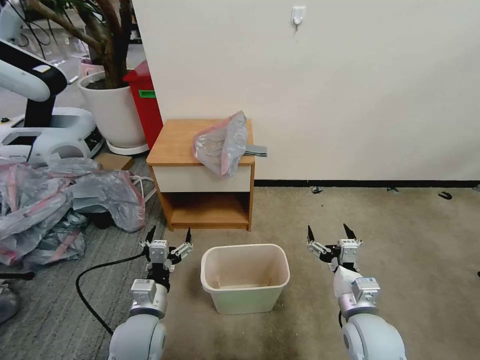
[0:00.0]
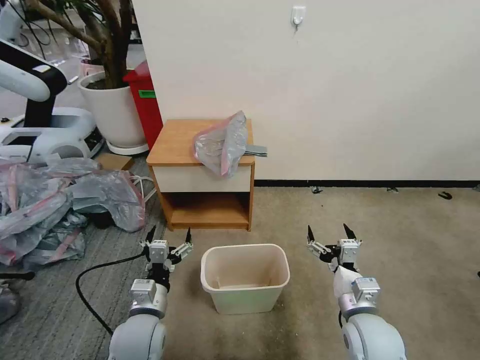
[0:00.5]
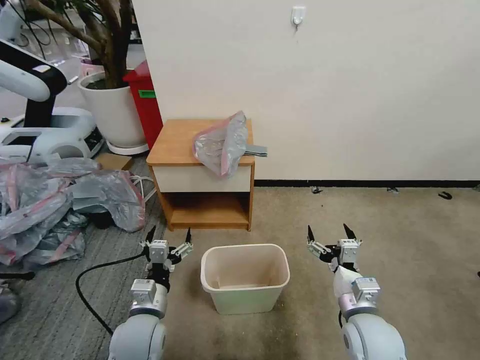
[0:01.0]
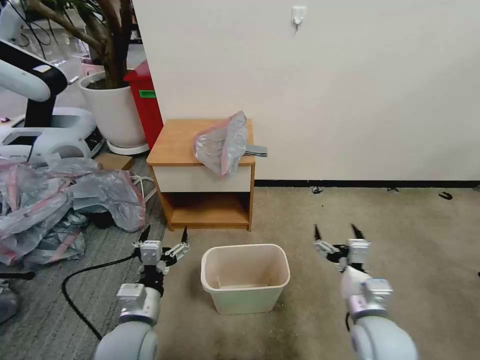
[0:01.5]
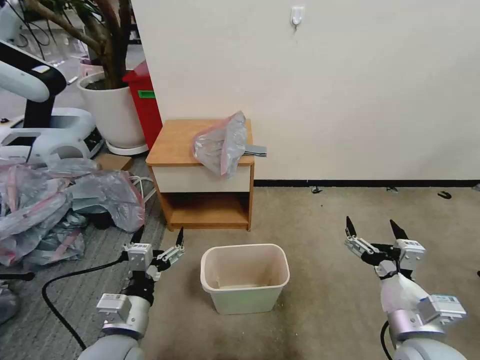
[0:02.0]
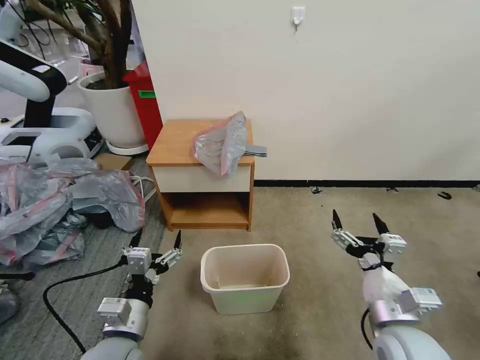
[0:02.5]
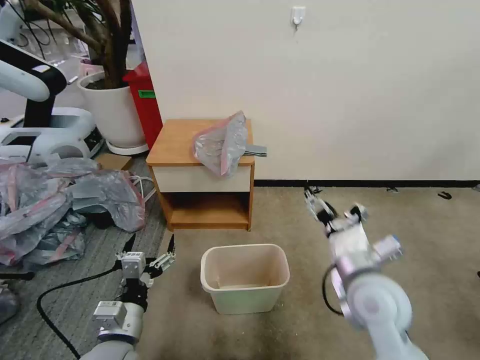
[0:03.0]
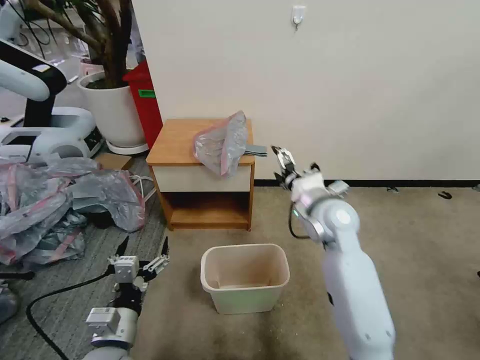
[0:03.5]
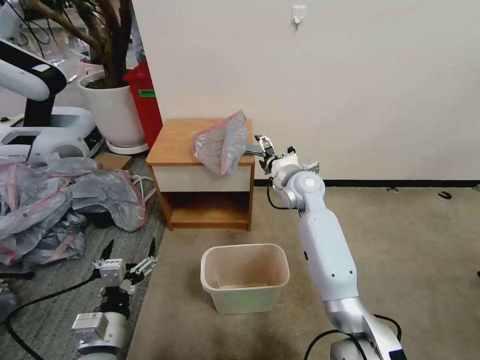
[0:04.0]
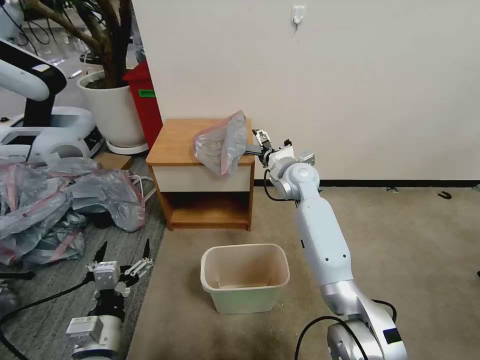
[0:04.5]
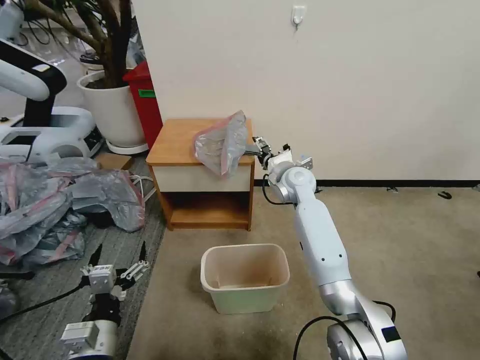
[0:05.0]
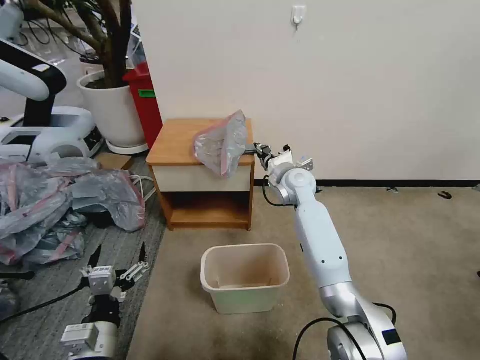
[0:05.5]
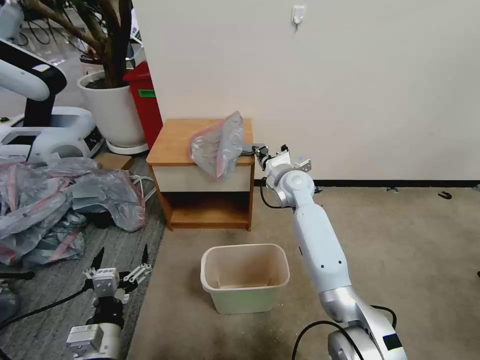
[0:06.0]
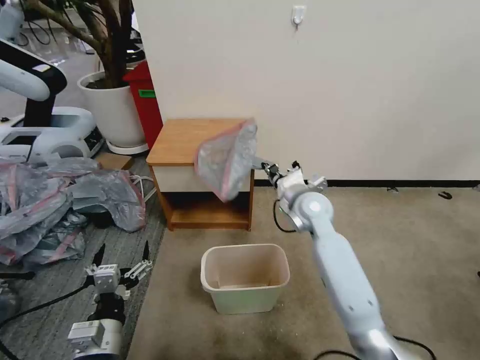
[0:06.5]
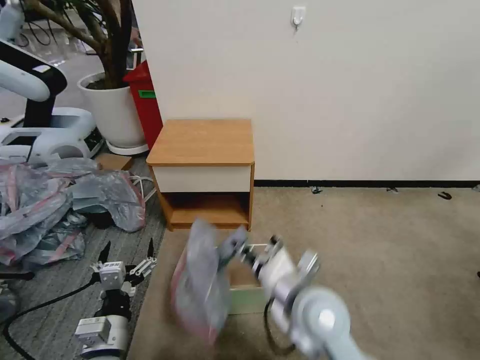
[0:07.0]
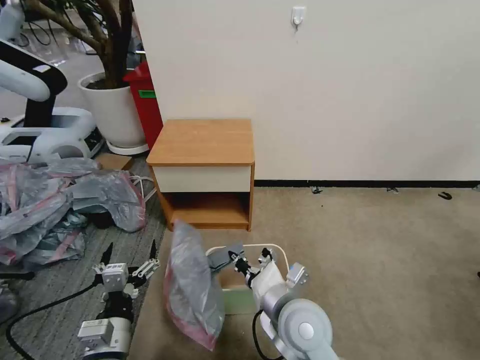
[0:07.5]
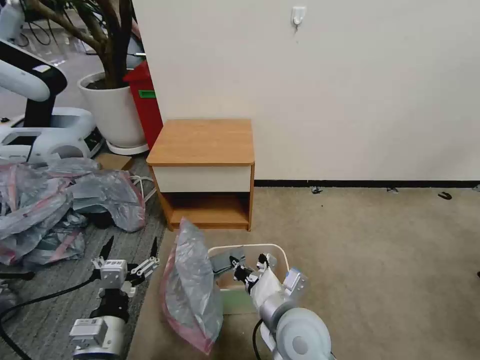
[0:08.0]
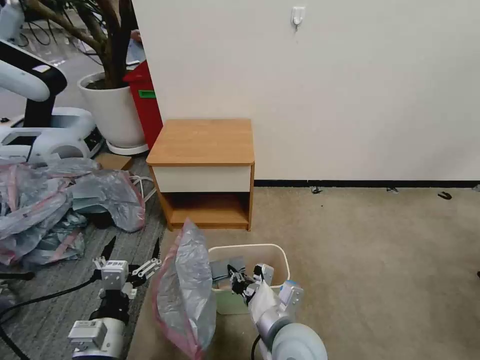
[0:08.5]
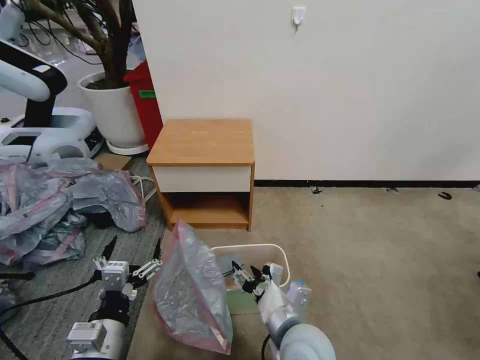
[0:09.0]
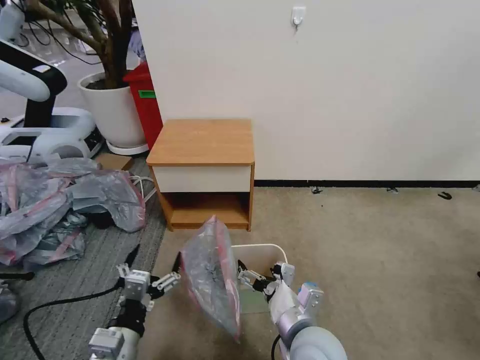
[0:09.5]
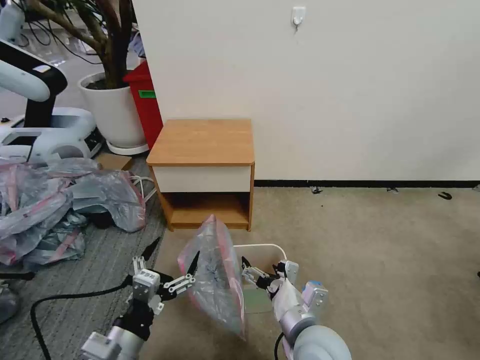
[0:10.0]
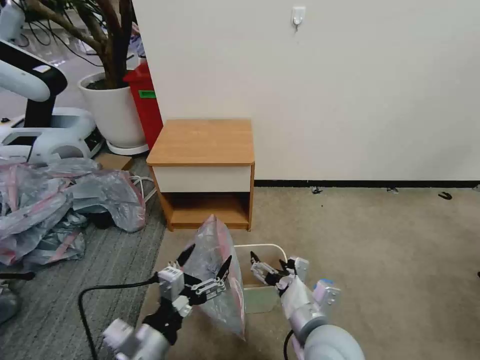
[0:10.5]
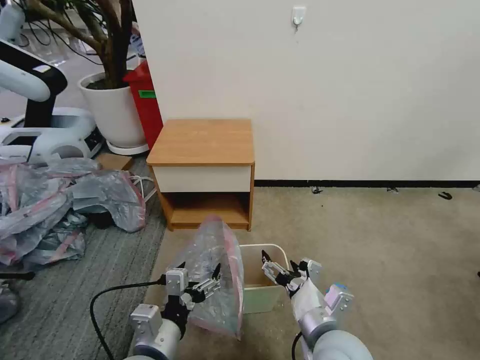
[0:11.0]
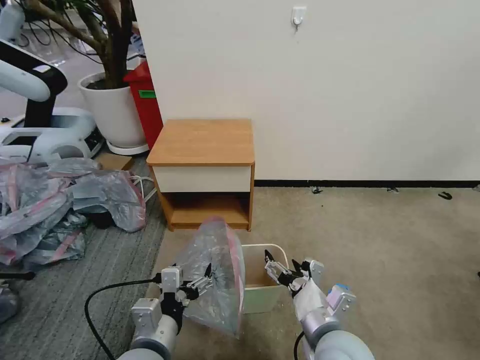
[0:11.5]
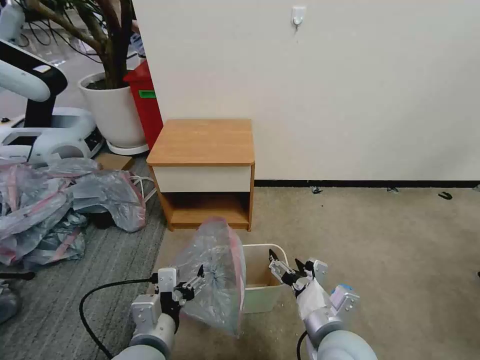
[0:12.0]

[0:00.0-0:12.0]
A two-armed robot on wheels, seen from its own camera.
Task of the whole recording: Pick up the garbage bag from the table and place it over the trash can.
0:02.0 to 0:04.0: The right gripper travels forward by about 35 cm.
0:04.0 to 0:06.0: The right gripper closes its fingers.
0:06.0 to 0:08.0: The right gripper travels backward by some 30 cm.
0:08.0 to 0:10.0: The right gripper opens.
0:10.0 to 0:12.0: The left gripper goes about 5 cm to the right.

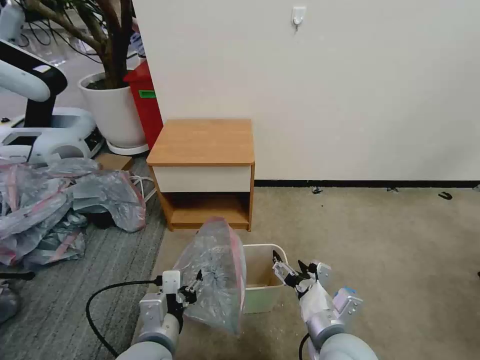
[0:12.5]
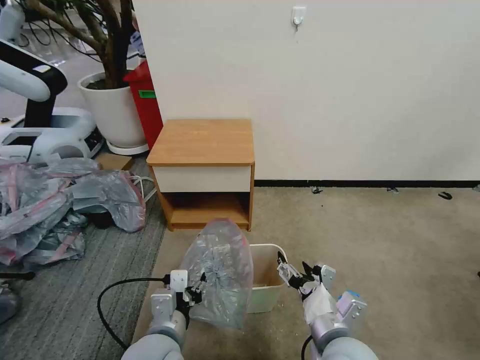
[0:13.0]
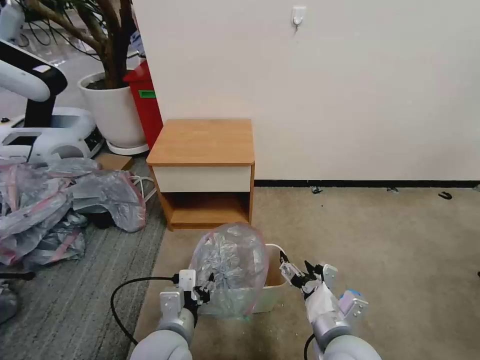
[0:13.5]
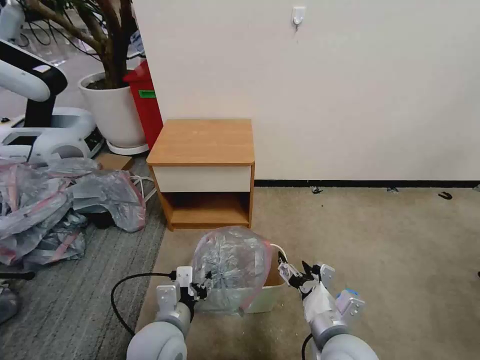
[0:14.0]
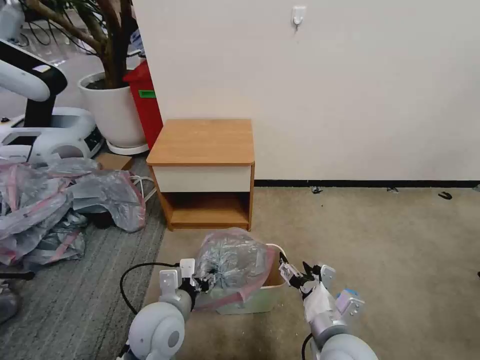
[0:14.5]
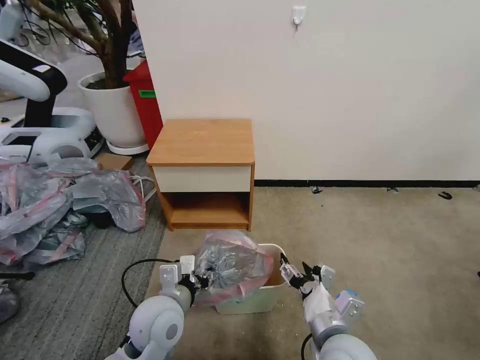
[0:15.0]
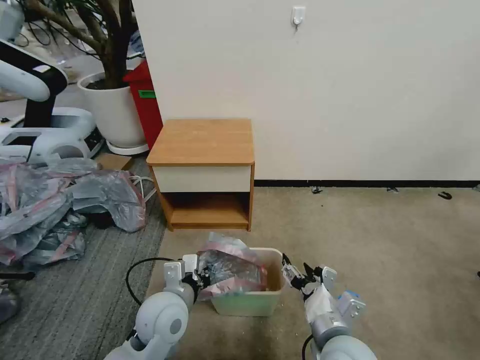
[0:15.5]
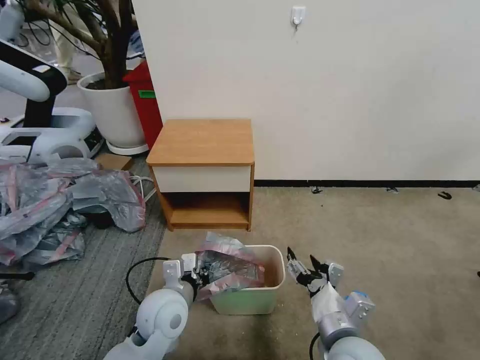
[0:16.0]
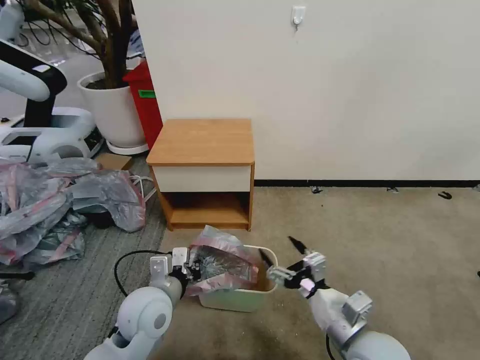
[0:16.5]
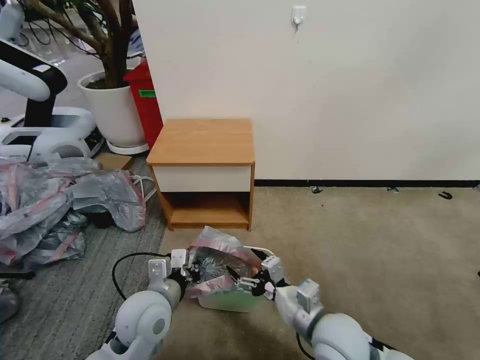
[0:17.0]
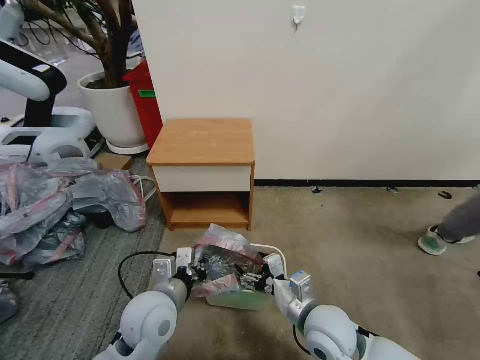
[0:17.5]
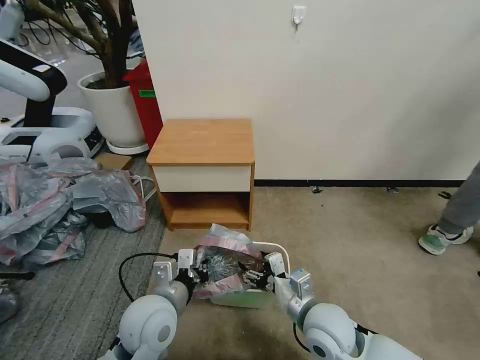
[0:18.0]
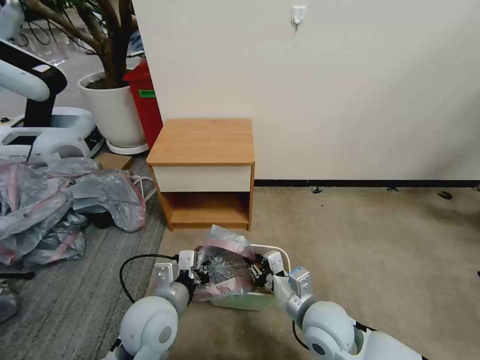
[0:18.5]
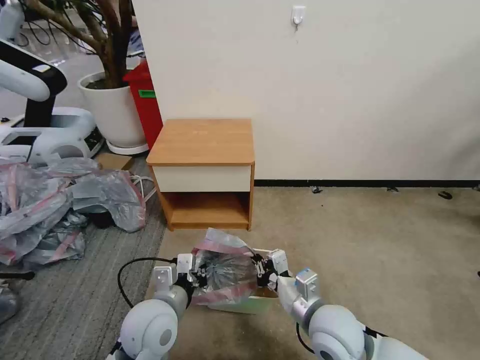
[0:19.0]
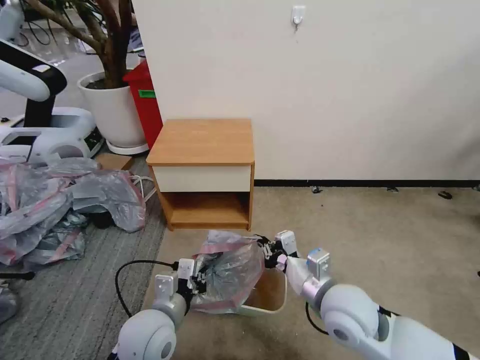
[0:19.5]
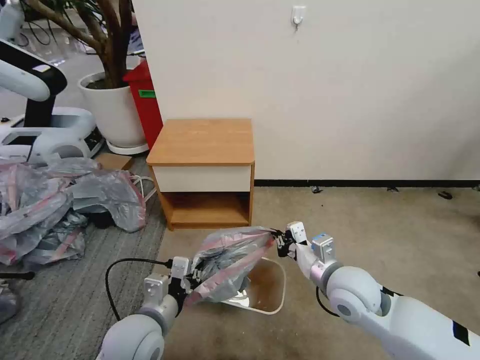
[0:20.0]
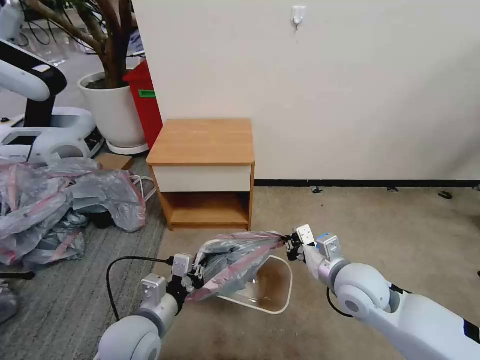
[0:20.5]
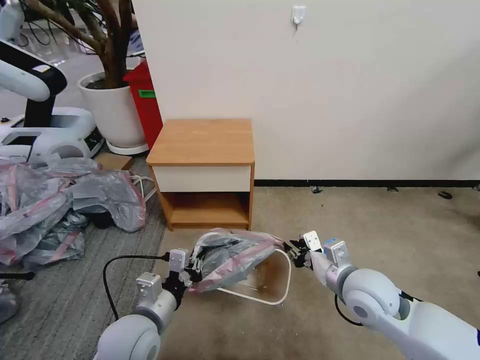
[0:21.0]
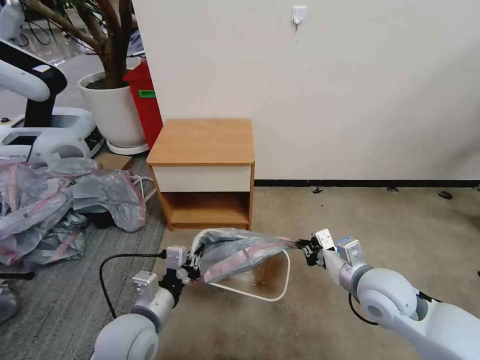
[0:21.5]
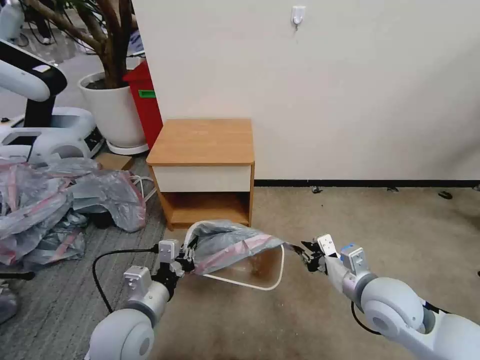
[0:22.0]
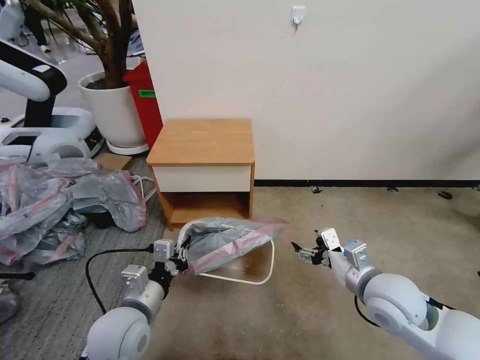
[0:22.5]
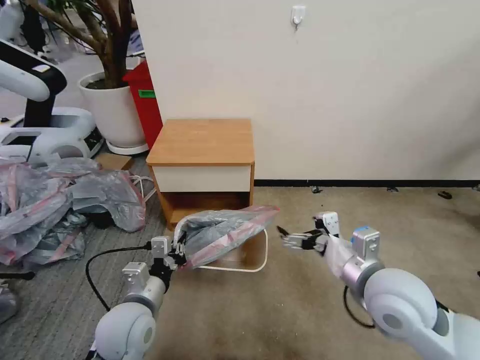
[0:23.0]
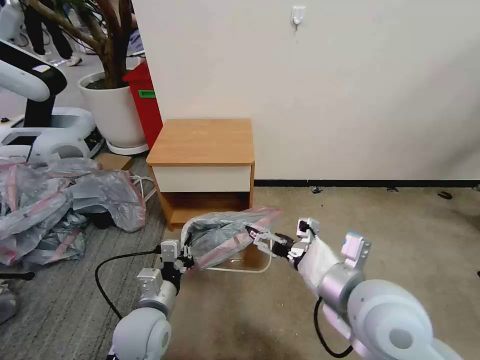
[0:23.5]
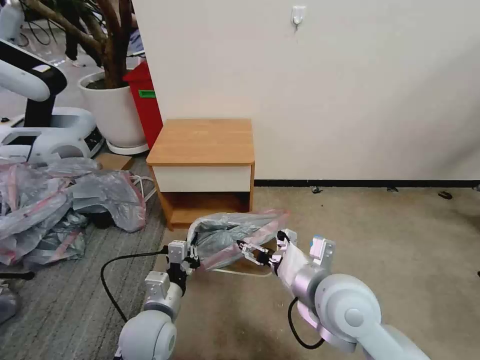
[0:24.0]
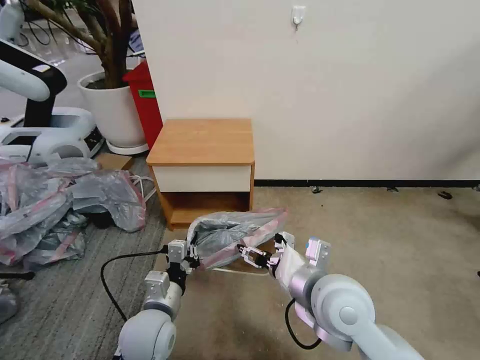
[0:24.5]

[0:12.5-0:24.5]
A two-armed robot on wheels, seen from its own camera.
Task of the whole recording: Pick up the garbage bag from the table and place it over the trash can.
0:12.5 to 0:14.5: The left gripper moves forward, some 5 cm.
0:14.5 to 0:16.5: The left gripper closes.
0:16.5 to 0:18.5: The right gripper is displaced forward and to the left by some 10 cm, and closes.
0:18.5 to 0:20.5: The right gripper is displaced to the right, upward and forward by approximately 10 cm.
0:20.5 to 0:22.5: The right gripper moves about 5 cm, and opens up.
0:22.5 to 0:24.5: The left gripper shifts by approximately 5 cm. The right gripper travels to the left and upward by some 15 cm.

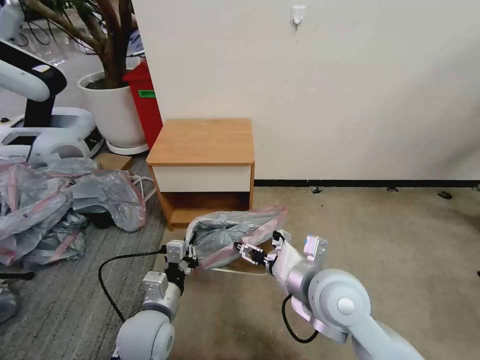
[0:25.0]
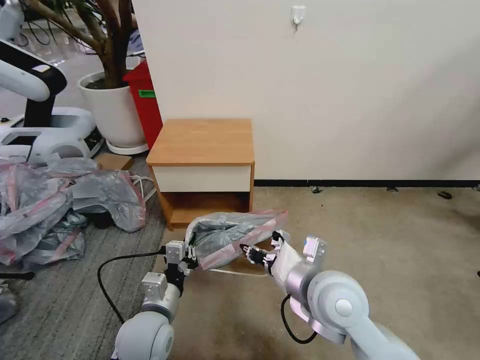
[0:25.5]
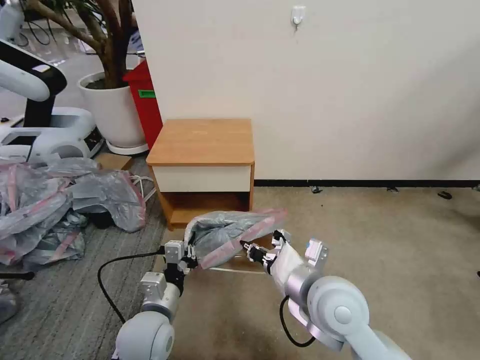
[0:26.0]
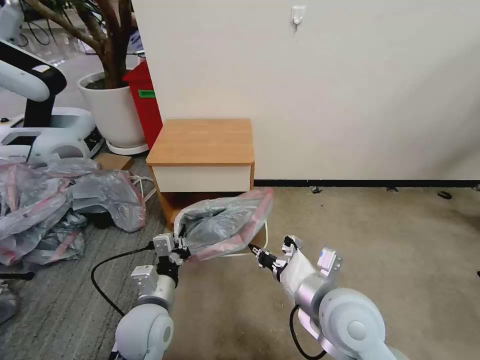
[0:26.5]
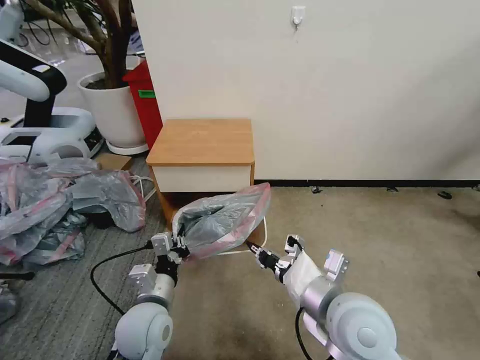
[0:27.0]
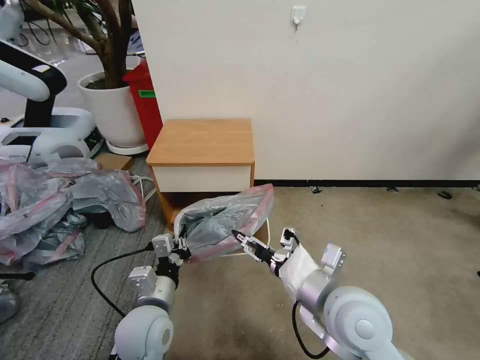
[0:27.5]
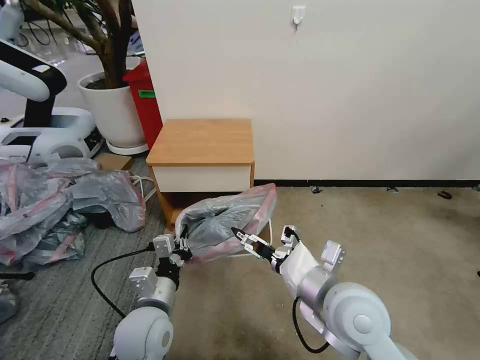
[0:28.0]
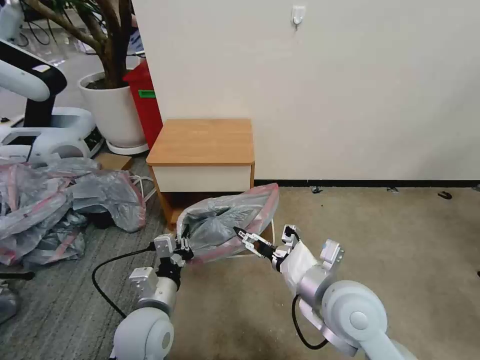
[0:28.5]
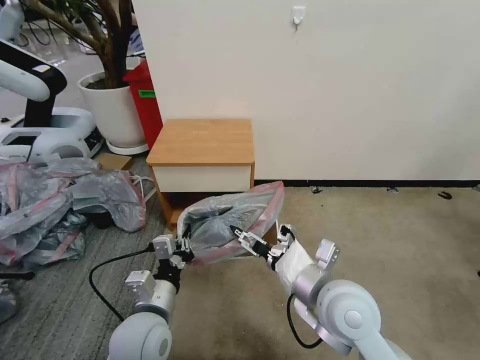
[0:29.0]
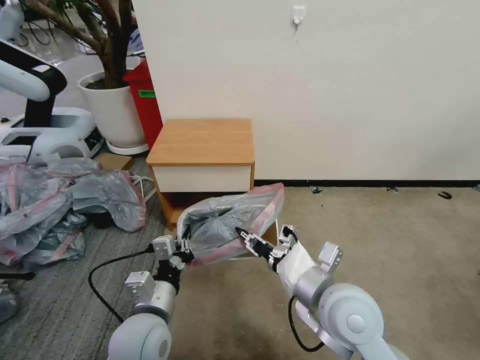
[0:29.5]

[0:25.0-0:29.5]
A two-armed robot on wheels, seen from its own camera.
Task of the whole recording: Pick up the garbage bag from the table and place it over the trash can.
0:25.0 to 0:27.0: The right gripper closes up.
0:27.0 to 0:29.5: The right gripper opens, then closes once more.
